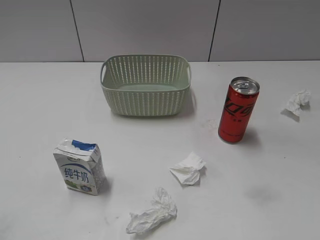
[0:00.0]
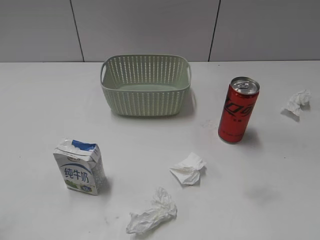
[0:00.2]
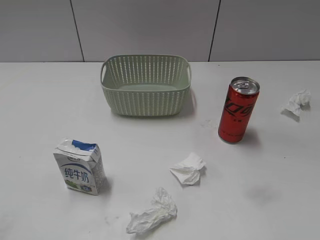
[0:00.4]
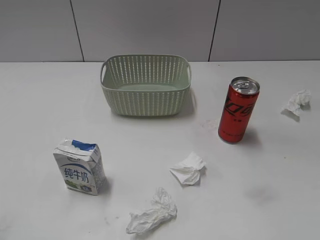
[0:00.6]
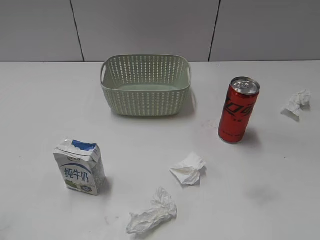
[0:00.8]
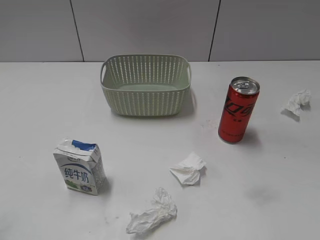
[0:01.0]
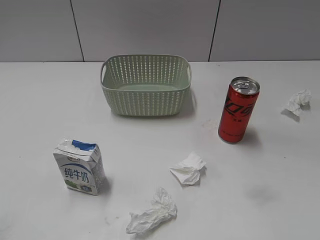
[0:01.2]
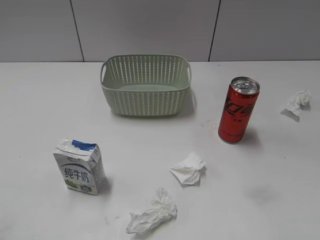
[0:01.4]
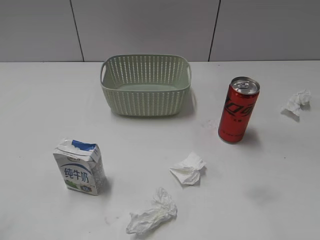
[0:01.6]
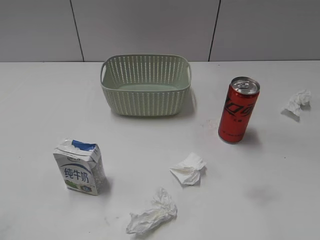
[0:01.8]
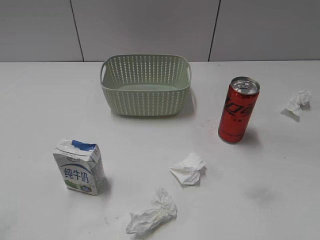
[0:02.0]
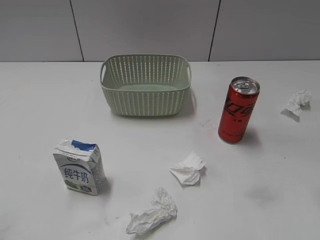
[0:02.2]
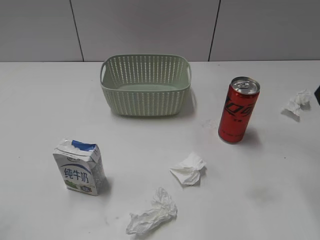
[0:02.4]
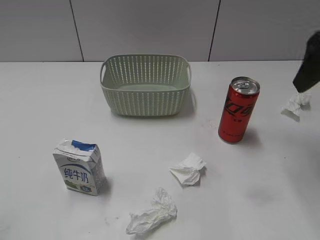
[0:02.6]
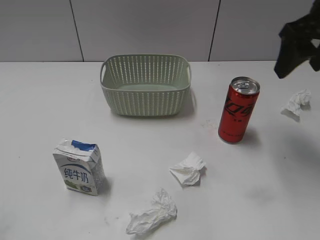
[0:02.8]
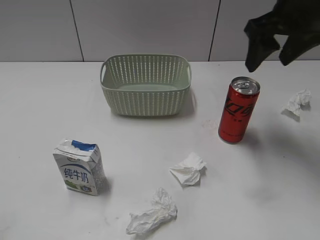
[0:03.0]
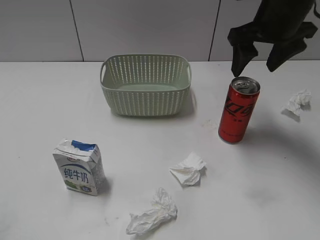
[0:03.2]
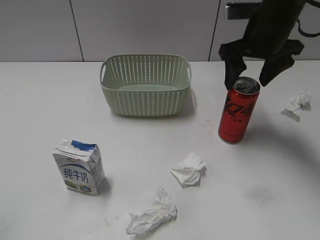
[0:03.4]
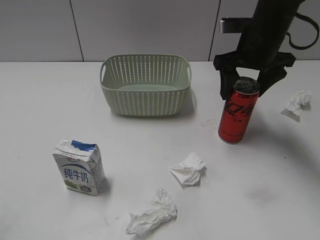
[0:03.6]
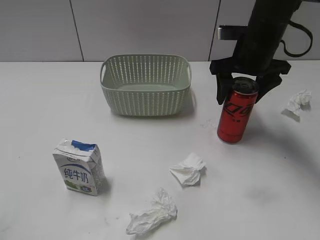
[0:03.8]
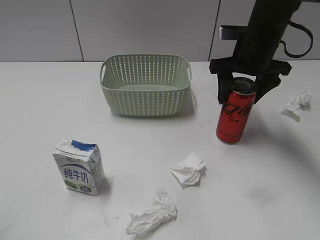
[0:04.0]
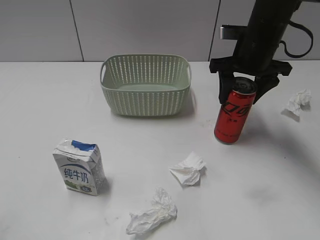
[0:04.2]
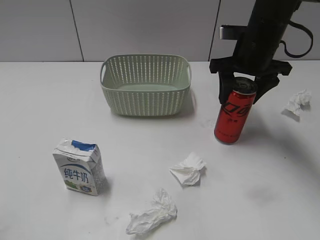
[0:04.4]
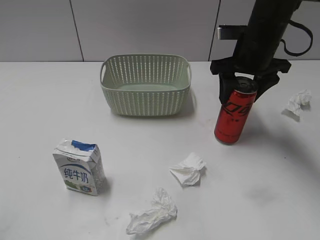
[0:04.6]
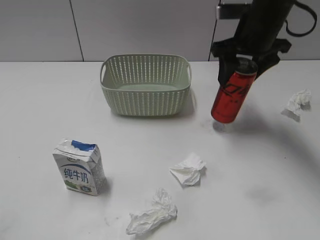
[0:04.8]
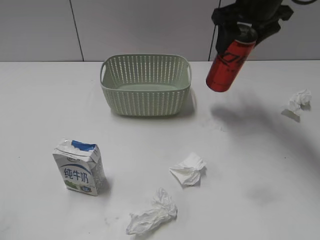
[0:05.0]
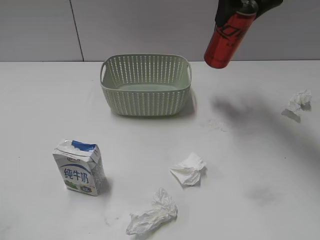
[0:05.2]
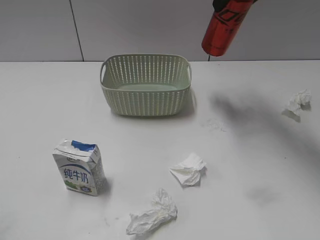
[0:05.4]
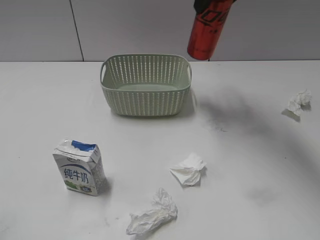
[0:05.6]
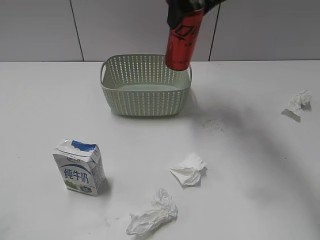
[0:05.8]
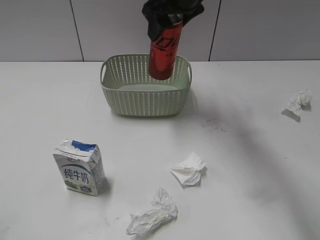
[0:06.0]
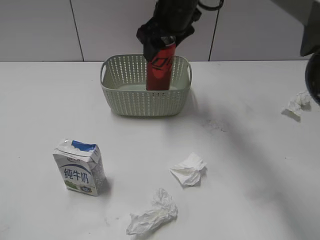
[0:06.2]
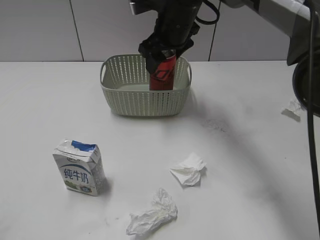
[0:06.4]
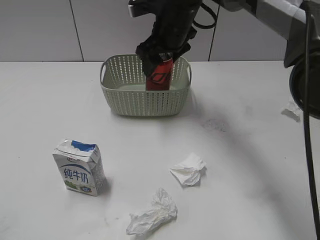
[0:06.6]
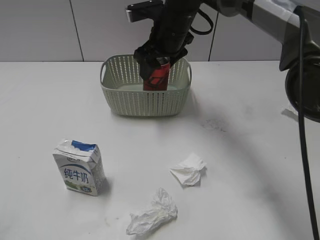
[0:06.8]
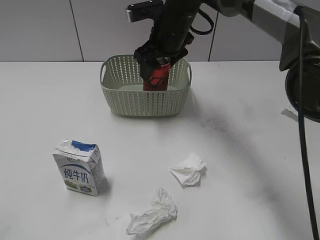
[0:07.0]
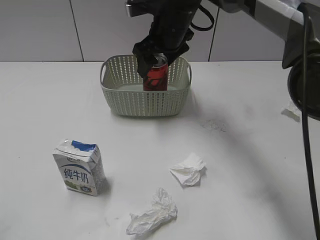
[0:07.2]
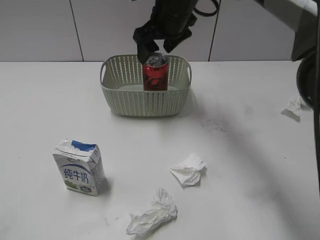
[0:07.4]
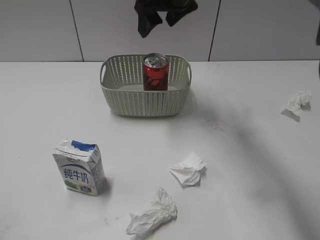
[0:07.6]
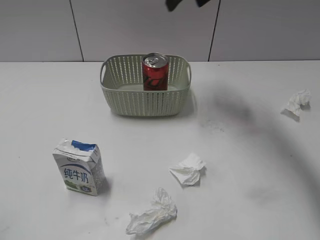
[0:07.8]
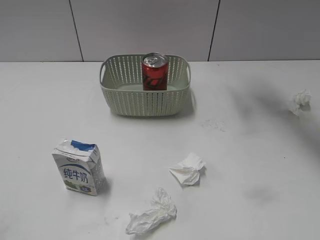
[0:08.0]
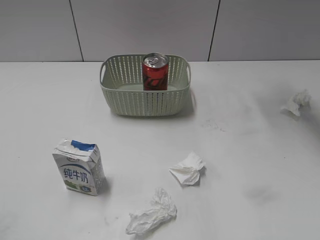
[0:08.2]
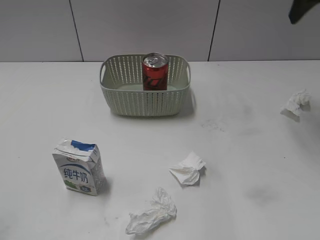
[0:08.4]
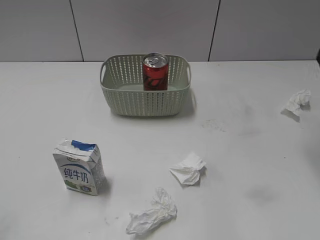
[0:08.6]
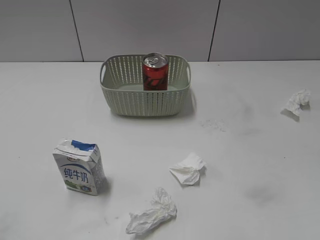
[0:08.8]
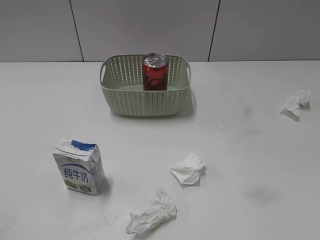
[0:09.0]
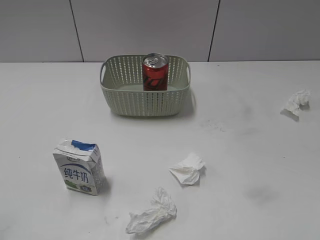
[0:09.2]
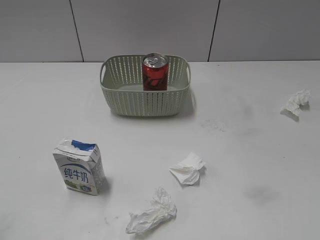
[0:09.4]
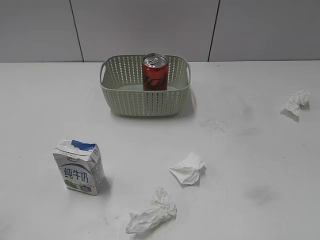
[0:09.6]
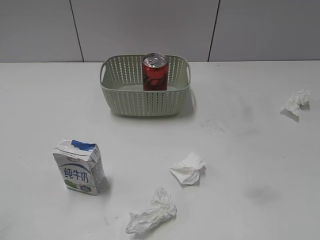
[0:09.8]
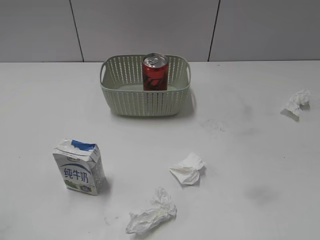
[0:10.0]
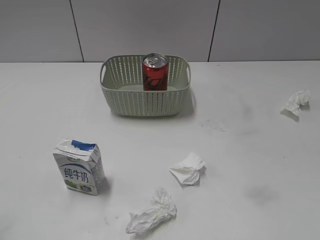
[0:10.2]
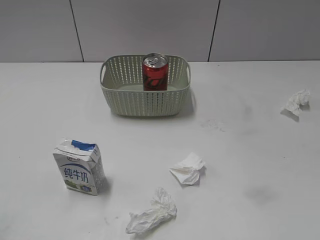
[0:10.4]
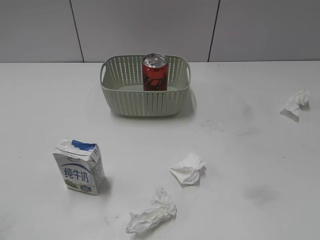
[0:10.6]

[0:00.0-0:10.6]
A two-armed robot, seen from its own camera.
Step, 0:02.4 to 0:04.2: Grasp the cola can with right gripper.
Step, 0:04.4 to 0:07.4: Place the cola can in the basket with right gripper.
0:01.6 to 0:03.0: The right gripper heads forward, covering approximately 30 cm.
0:03.0 to 0:04.6: The right gripper goes approximately 10 cm downward and forward, and closes up.
0:04.6 to 0:06.0: The right gripper travels to the left and upward by roughly 15 cm.
0:06.0 to 0:07.6: The right gripper goes downward and returns, approximately 10 cm each way, and opens its fingers.
0:07.6 to 0:09.0: The right gripper goes some 40 cm backward and to the right, and closes its fingers.

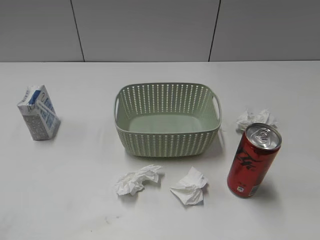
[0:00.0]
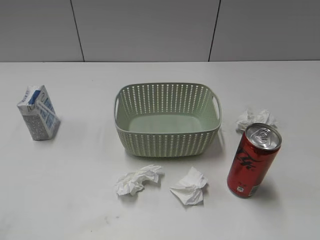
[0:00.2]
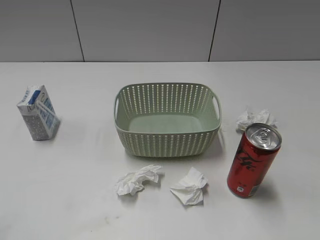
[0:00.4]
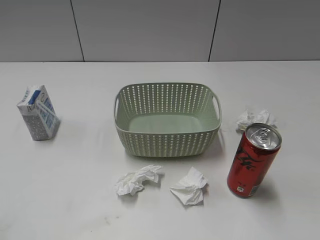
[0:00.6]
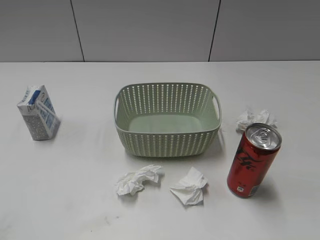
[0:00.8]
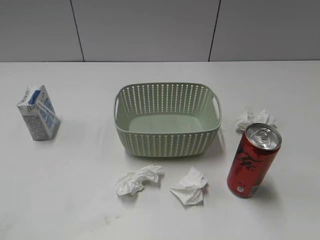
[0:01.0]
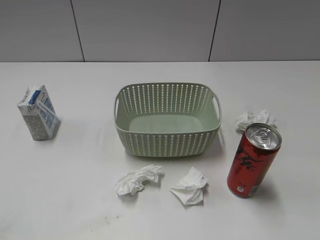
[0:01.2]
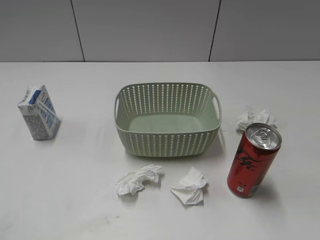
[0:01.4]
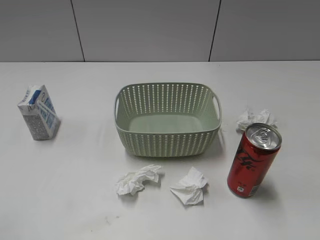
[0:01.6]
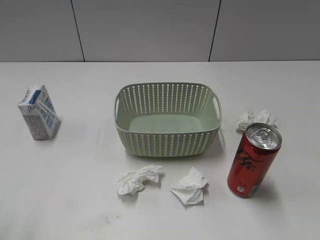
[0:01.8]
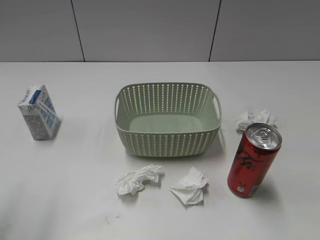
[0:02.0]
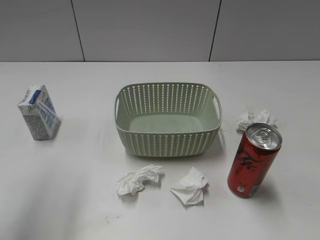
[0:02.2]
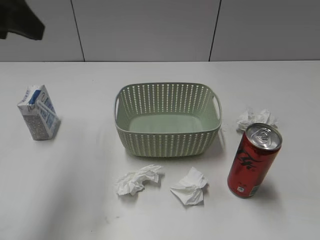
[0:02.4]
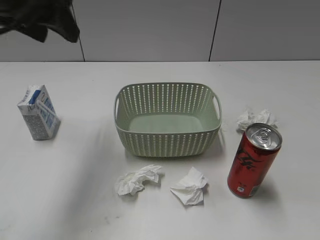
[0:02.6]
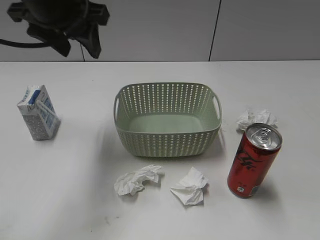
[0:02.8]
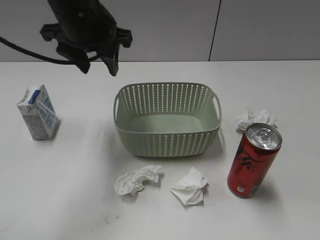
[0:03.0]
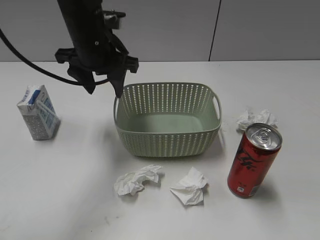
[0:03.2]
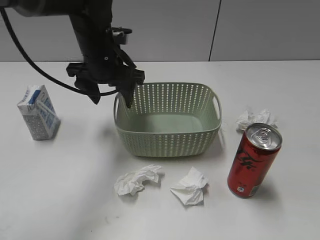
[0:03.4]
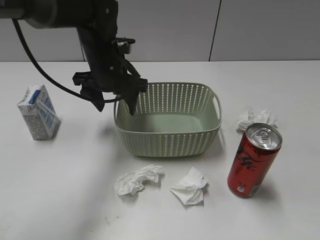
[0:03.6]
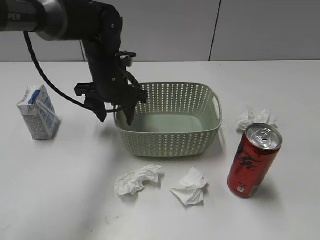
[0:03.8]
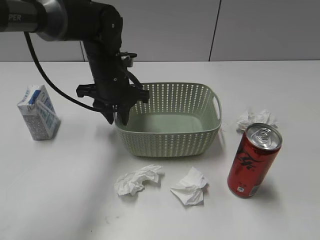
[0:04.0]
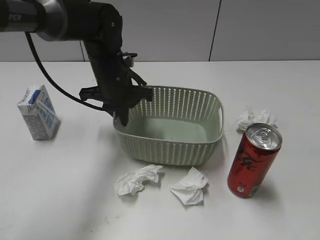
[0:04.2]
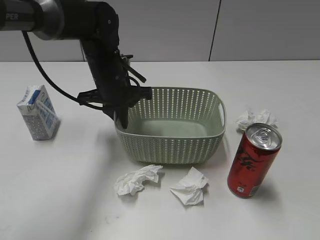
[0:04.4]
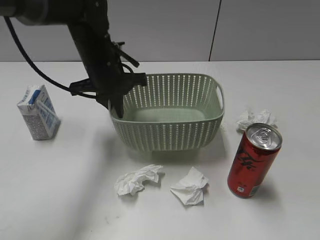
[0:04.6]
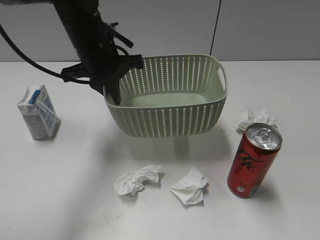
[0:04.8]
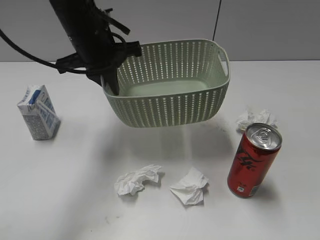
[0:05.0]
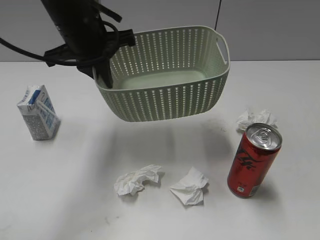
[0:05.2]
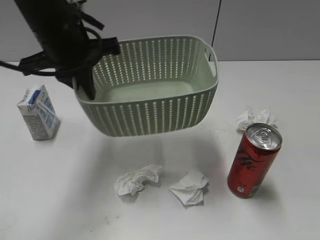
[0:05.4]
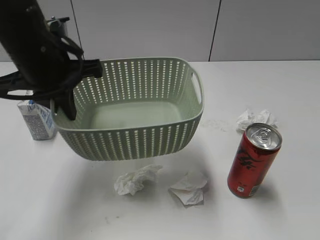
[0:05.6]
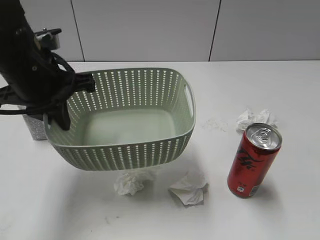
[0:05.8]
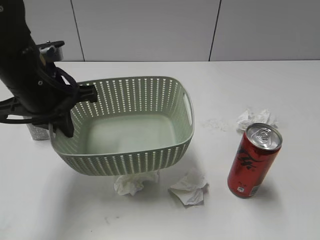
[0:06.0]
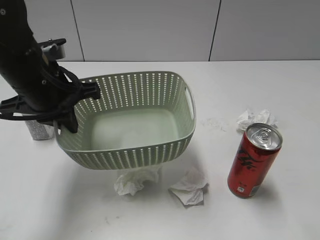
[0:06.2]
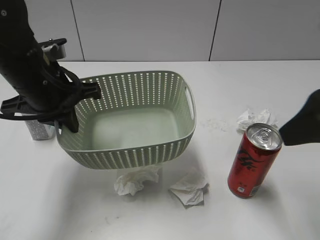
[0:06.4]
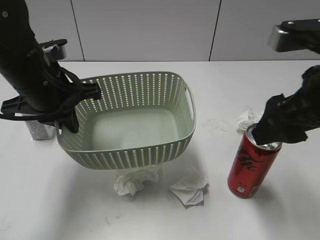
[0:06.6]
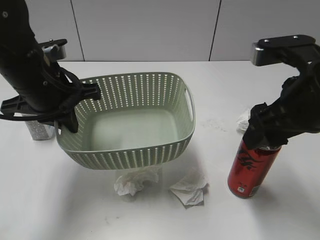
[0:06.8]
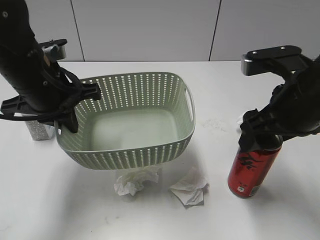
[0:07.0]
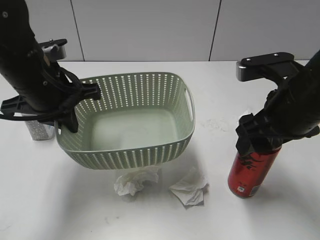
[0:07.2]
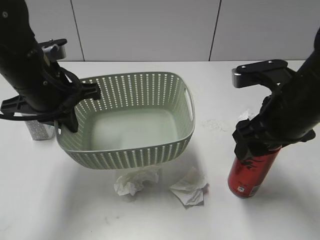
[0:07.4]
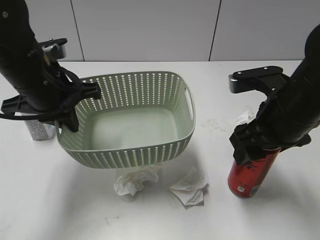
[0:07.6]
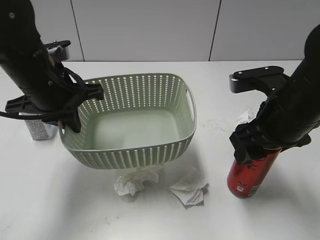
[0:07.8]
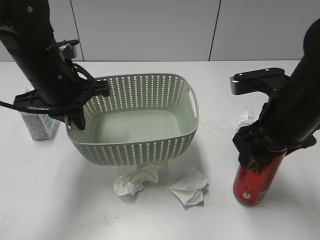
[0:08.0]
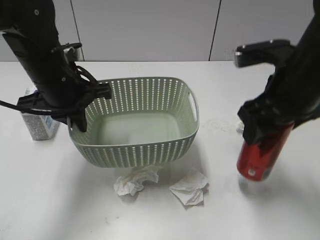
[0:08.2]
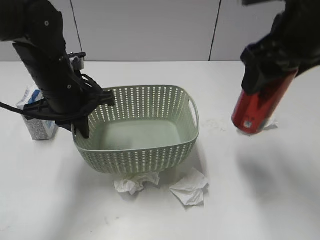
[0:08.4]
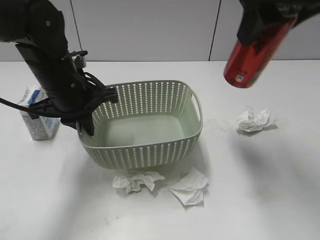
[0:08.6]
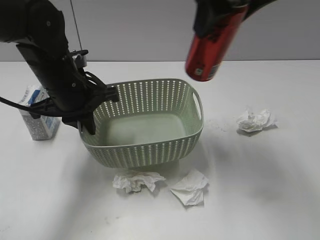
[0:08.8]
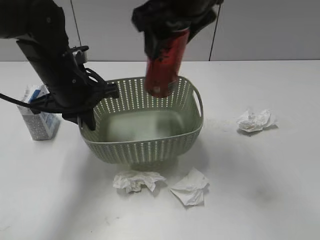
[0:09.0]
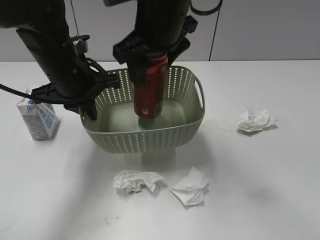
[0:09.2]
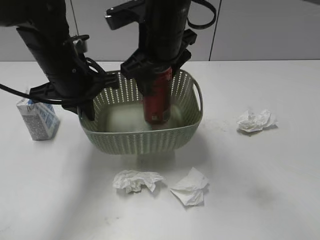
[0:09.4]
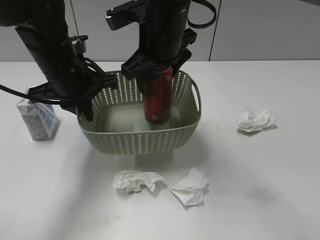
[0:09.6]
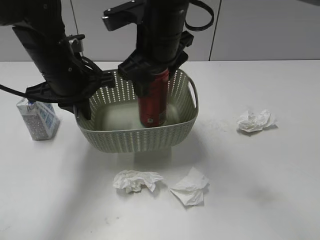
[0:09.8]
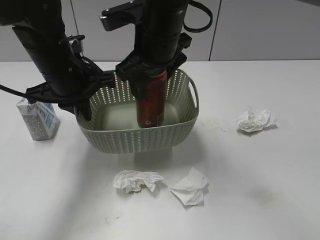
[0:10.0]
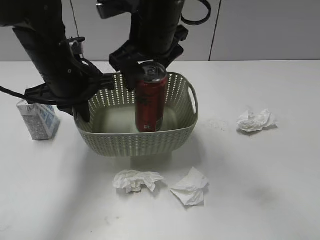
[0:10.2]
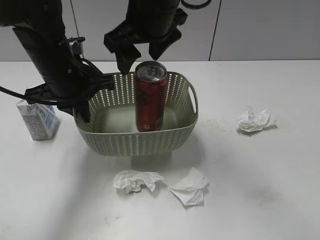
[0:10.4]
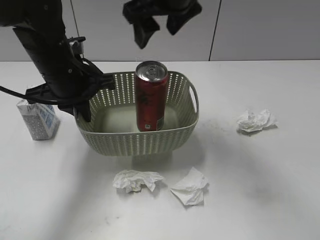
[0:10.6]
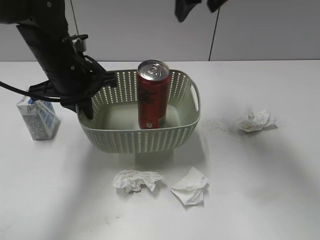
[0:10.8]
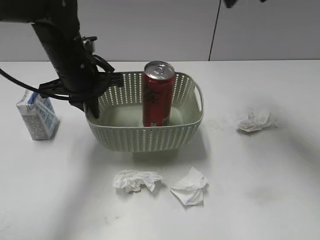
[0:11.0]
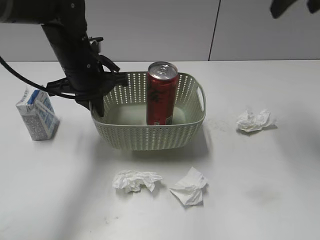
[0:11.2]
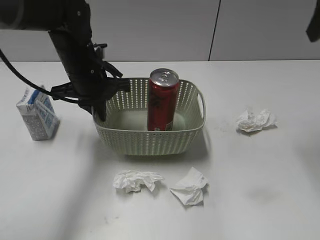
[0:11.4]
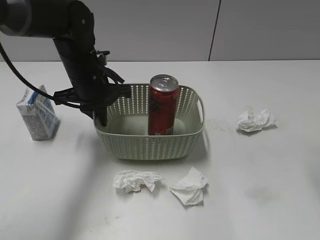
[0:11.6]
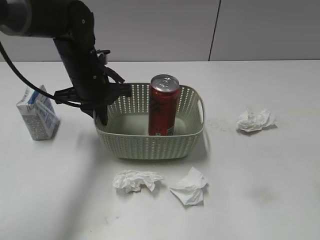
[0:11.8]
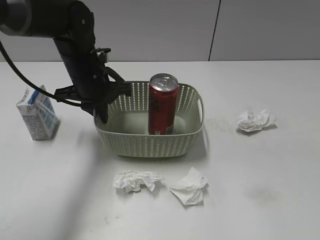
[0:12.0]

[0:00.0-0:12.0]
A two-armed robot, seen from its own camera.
Step, 0:02.4 to 0:04.2: Grasp the basket with left gripper.
Step, 0:04.4 to 0:06.2: Lift the basket with left gripper.
Step, 0:06.4 to 0:07.8: Grasp the cola can with right gripper.
Step, 0:08.0 to 0:10.2: Place the cola can in the basket with right gripper.
0:01.6 to 0:03.0: The left gripper heads forward and to the right, covering about 35 cm.
0:03.0 to 0:04.4: The left gripper is displaced downward by roughly 10 cm, and closes its fingers.
0:04.4 to 0:06.0: The left gripper travels backward, to the left and upward by roughly 15 cm; the right gripper travels forward and upward by roughly 10 cm, and opens up.
0:06.0 to 0:07.6: The right gripper is displaced forward, downward and to the left by about 20 cm, and opens and closes again.
0:07.6 to 0:09.0: The right gripper travels to the left, upward and forward by some 20 cm.
0:09.0 to 0:10.4: The right gripper opens up.
0:10.4 to 0:12.0: The right gripper travels to the right and backward by approximately 35 cm. Meanwhile the left gripper ends up approximately 5 cm from where it was.
